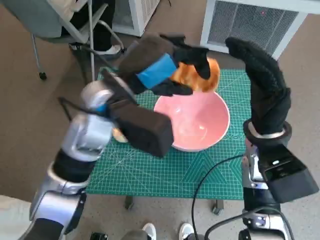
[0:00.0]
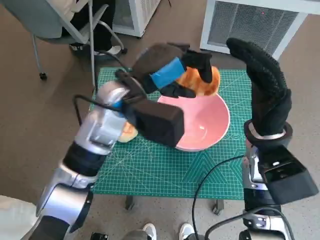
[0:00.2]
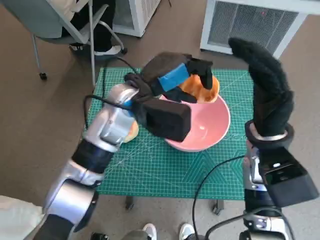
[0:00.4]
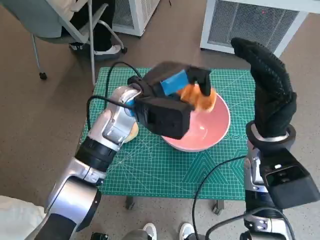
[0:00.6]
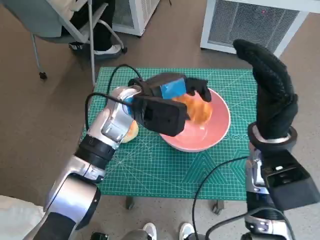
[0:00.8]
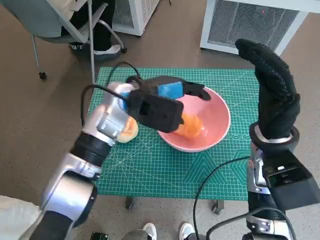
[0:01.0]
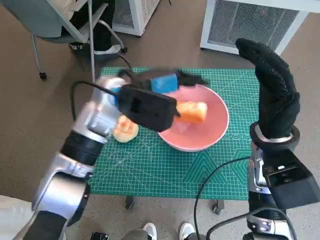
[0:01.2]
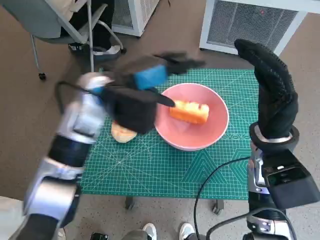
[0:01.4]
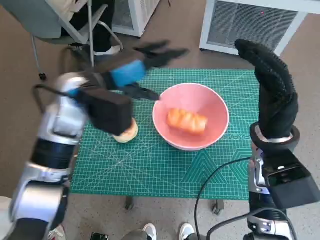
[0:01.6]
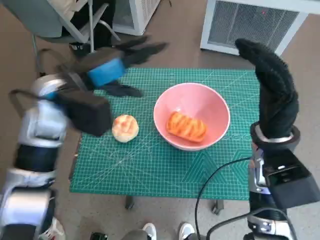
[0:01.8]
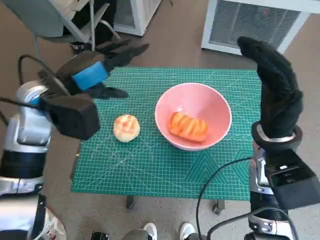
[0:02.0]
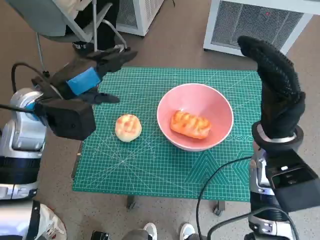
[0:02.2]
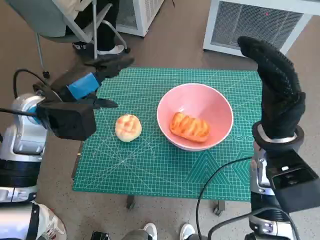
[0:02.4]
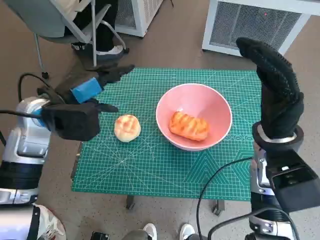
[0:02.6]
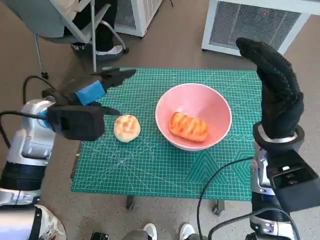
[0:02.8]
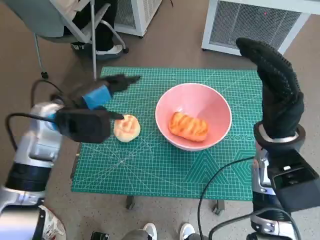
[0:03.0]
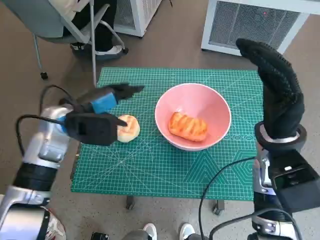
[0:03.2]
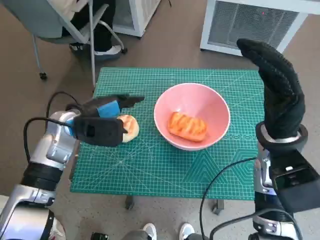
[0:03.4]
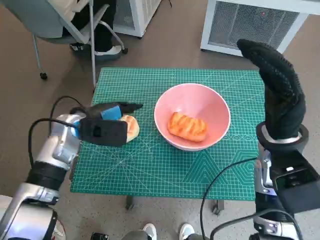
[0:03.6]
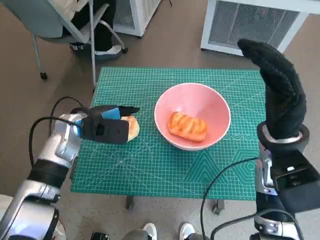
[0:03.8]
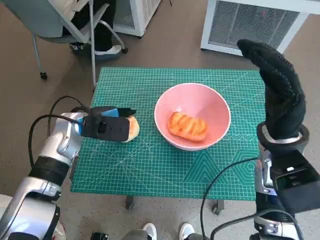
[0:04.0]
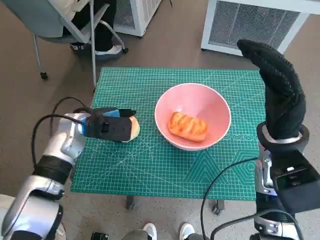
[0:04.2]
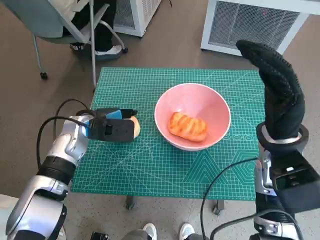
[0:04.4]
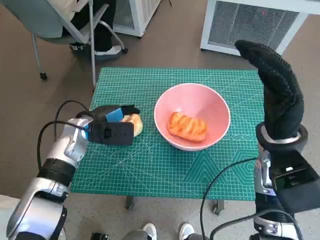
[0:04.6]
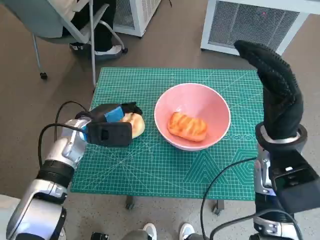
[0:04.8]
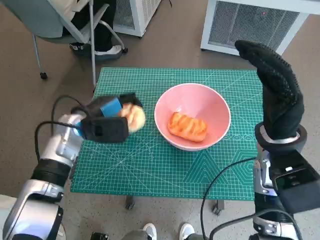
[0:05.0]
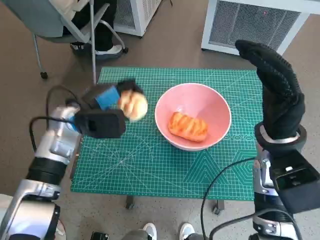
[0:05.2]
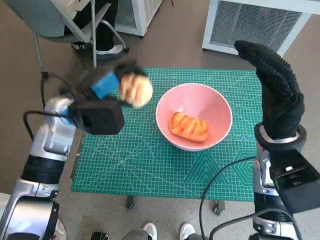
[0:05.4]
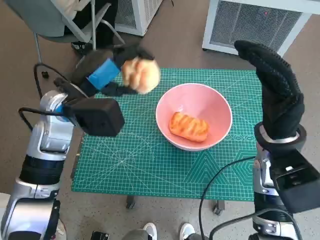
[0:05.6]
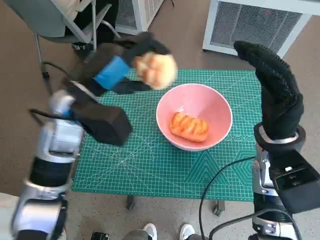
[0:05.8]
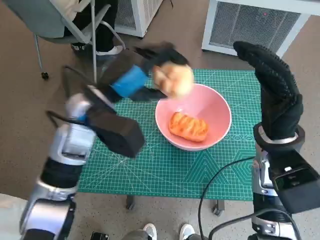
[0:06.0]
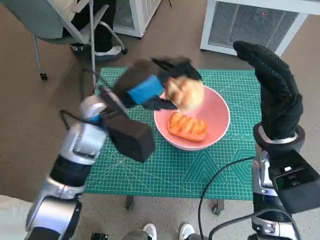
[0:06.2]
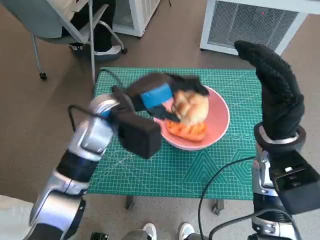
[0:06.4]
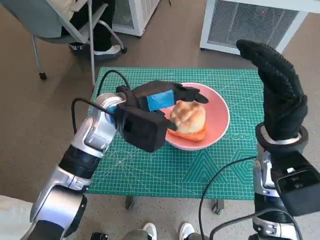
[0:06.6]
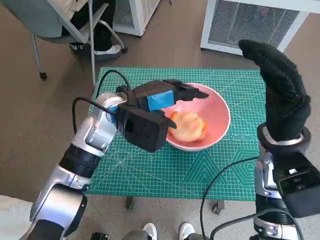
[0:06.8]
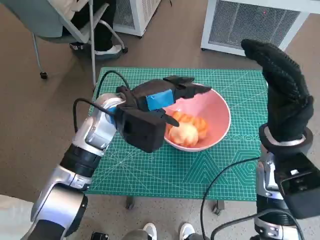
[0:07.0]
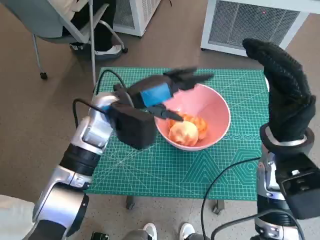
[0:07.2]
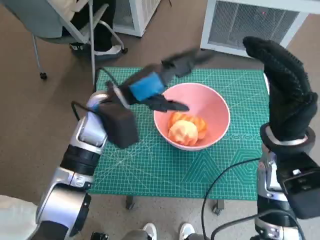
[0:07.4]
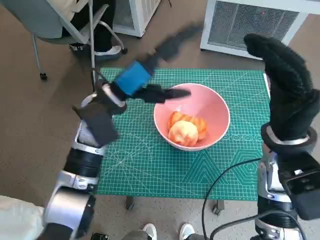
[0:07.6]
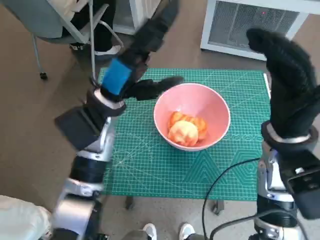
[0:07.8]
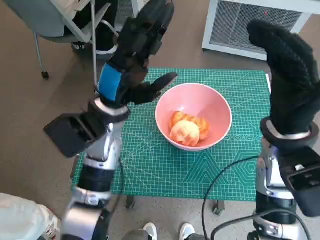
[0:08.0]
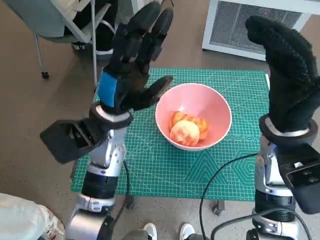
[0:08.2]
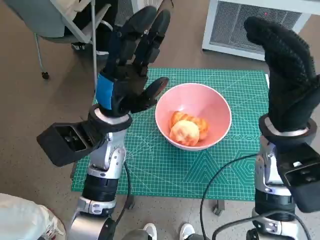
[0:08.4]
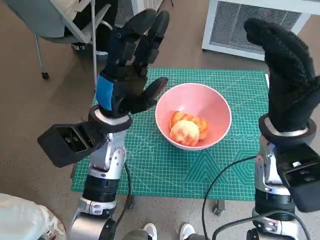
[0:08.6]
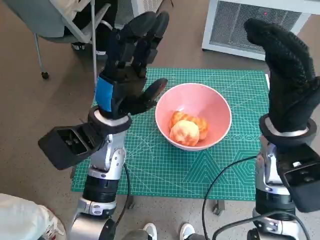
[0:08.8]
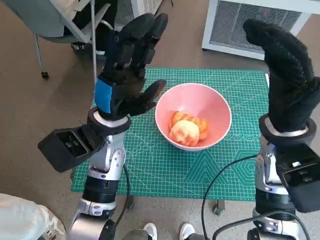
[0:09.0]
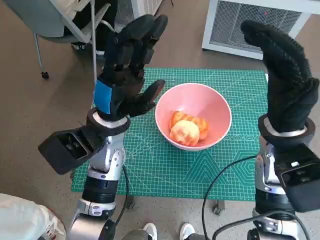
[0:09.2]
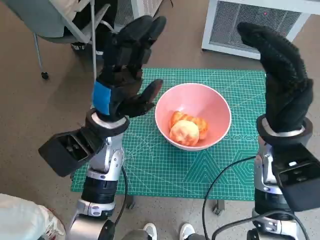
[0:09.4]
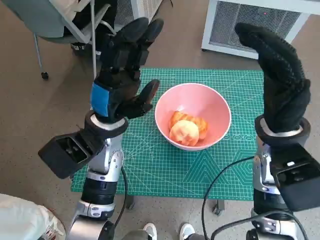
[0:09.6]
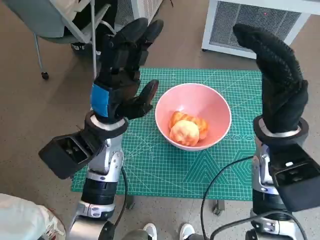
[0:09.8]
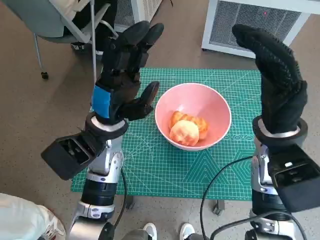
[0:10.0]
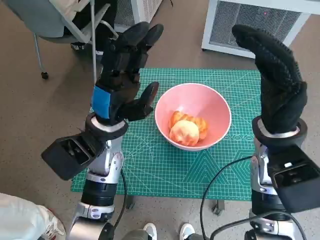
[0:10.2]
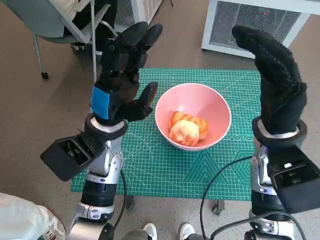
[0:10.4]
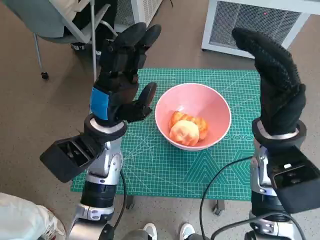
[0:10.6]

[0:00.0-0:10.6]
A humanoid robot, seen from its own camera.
Task of the whole recording: Push the bowl to the center of the table and put the bread into the bowl.
Step, 0:01.6 to 0:04.4: Grasp the round bread with left hand.
Step, 0:04.8 to 0:08.2: Place the round bread in pink bowl with left hand.
0:00.0 to 0:01.6: The left hand moves roughly 5 cm.
0:01.6 to 0:03.0: The left hand moves to the left, some 5 cm.
0:03.0 to 0:04.6: The left hand goes about 10 cm downward.
0:04.6 to 0:06.0: The left hand shifts roughly 15 cm upward and to the right.

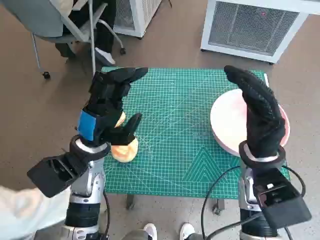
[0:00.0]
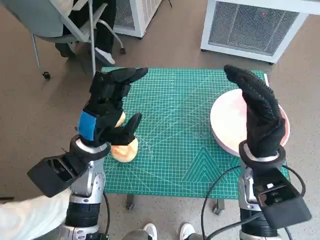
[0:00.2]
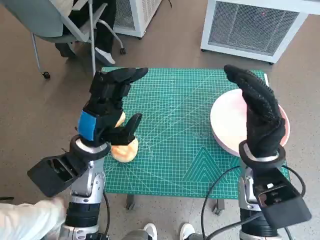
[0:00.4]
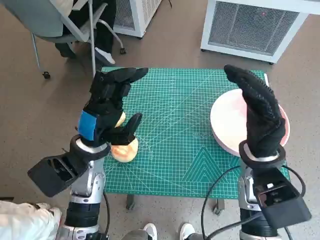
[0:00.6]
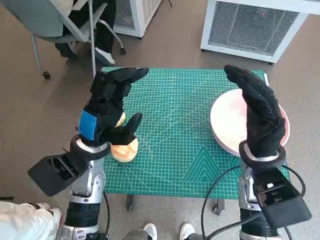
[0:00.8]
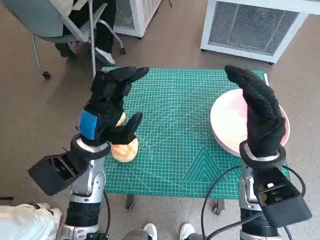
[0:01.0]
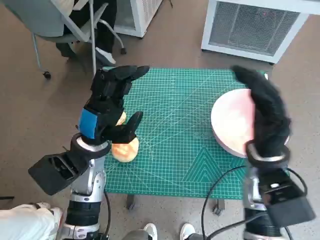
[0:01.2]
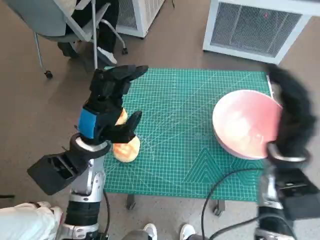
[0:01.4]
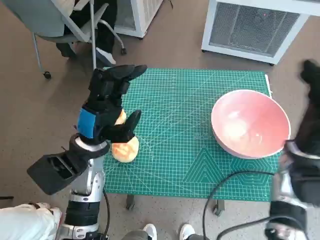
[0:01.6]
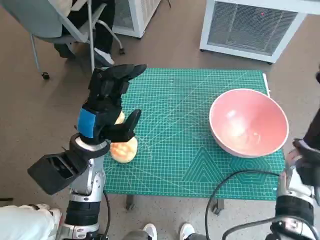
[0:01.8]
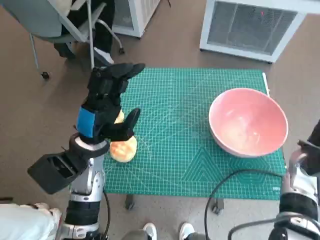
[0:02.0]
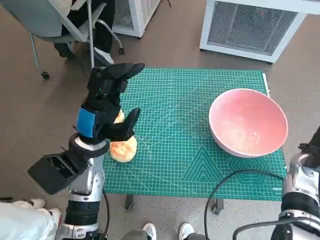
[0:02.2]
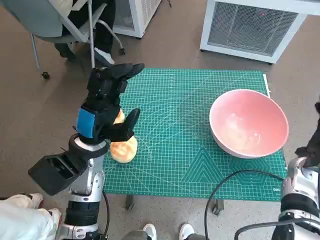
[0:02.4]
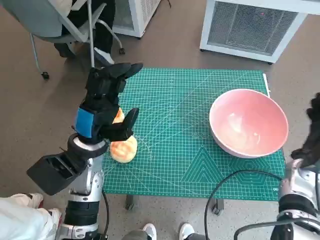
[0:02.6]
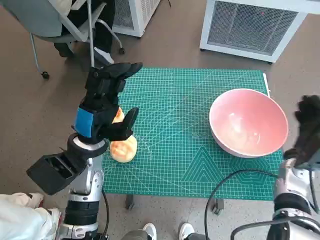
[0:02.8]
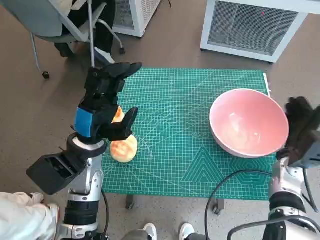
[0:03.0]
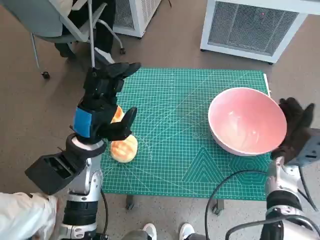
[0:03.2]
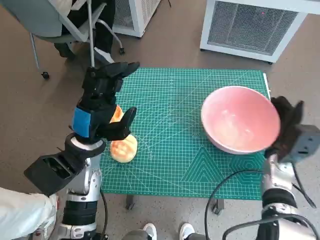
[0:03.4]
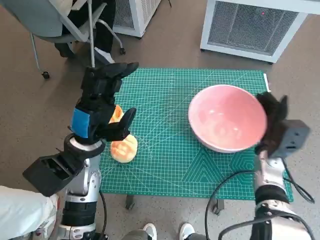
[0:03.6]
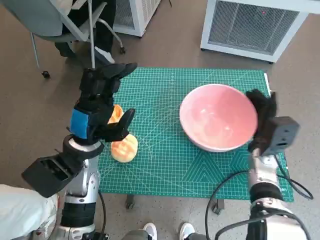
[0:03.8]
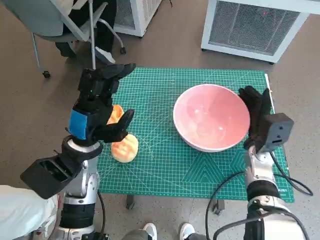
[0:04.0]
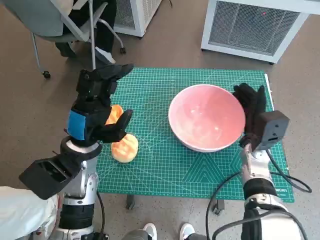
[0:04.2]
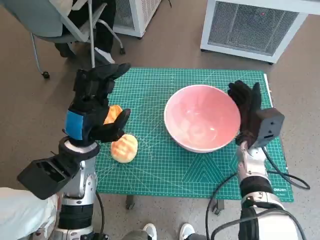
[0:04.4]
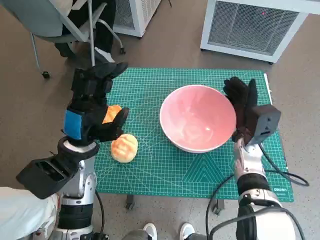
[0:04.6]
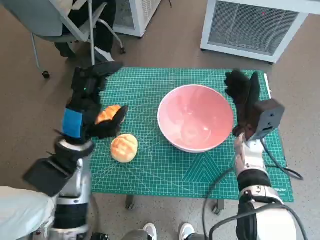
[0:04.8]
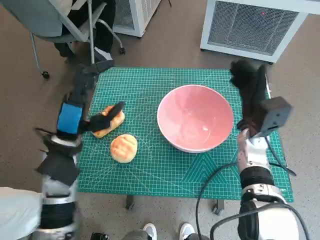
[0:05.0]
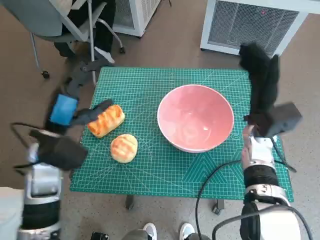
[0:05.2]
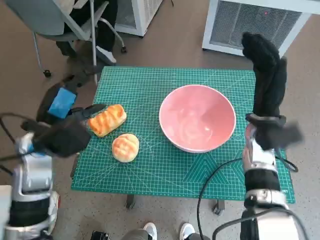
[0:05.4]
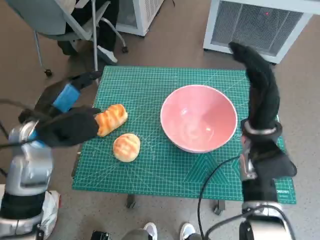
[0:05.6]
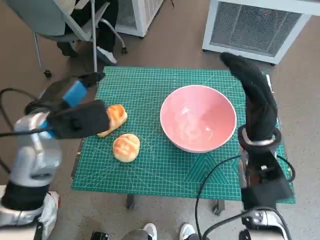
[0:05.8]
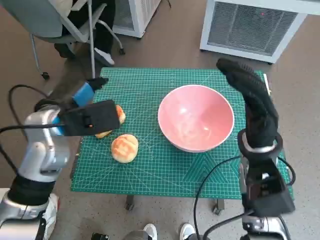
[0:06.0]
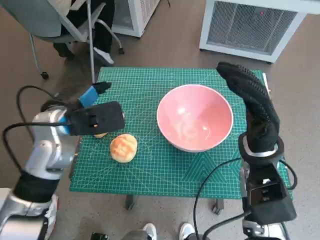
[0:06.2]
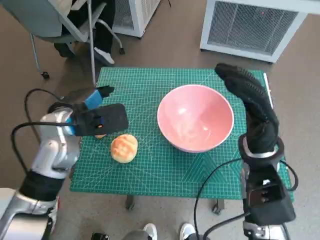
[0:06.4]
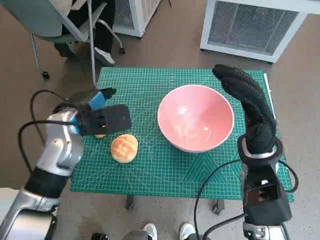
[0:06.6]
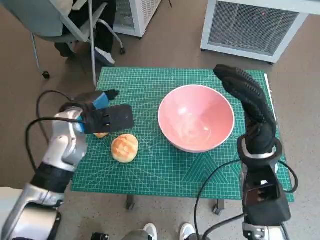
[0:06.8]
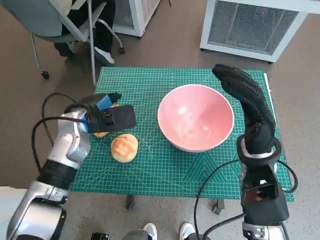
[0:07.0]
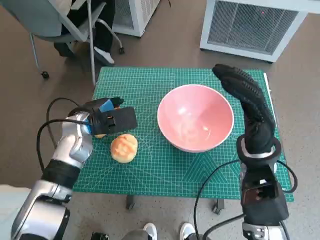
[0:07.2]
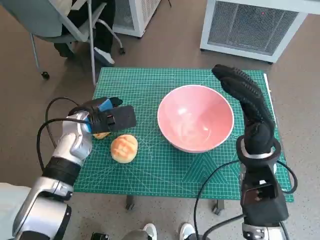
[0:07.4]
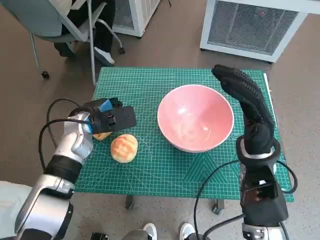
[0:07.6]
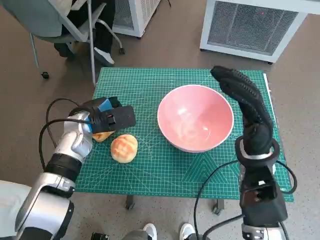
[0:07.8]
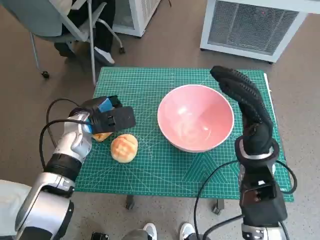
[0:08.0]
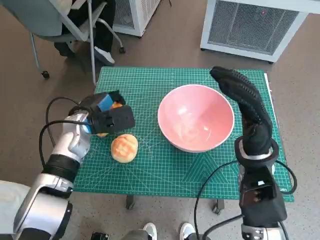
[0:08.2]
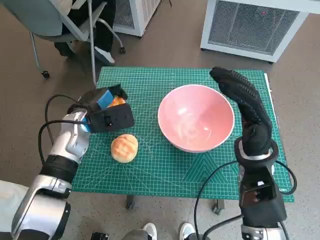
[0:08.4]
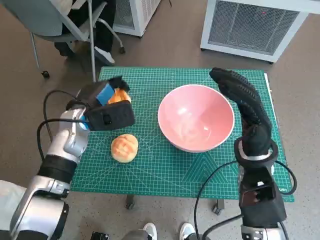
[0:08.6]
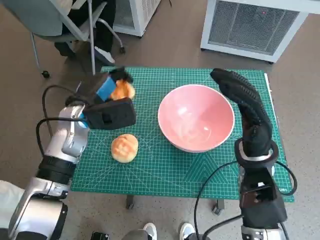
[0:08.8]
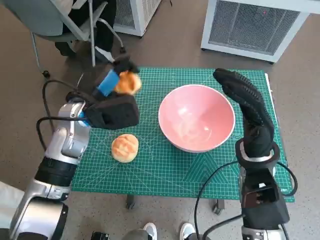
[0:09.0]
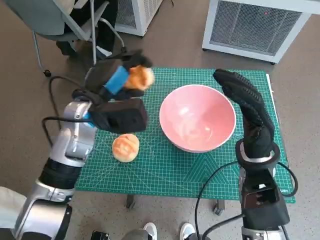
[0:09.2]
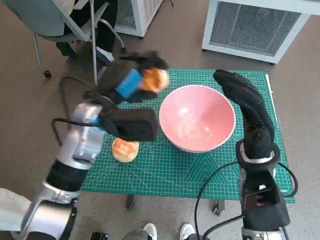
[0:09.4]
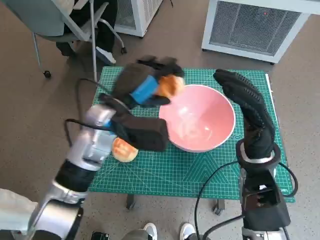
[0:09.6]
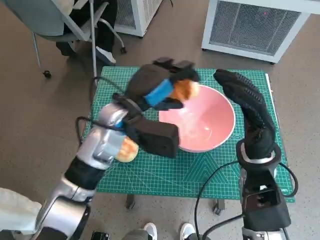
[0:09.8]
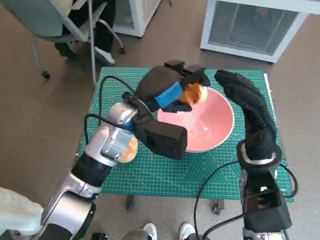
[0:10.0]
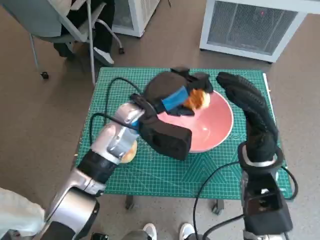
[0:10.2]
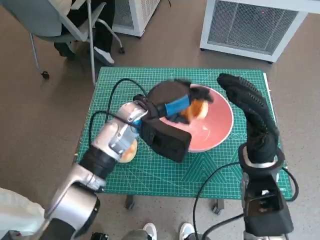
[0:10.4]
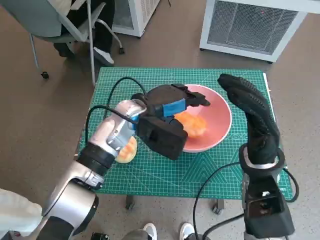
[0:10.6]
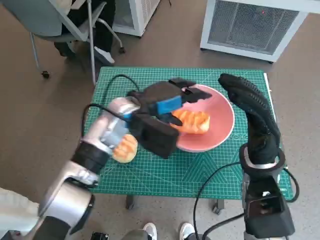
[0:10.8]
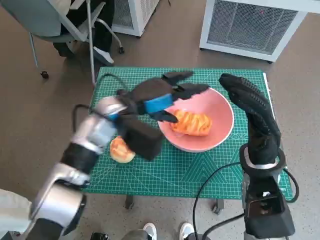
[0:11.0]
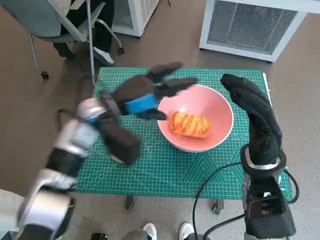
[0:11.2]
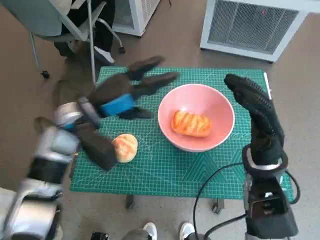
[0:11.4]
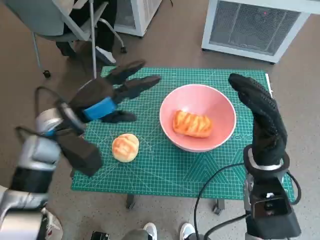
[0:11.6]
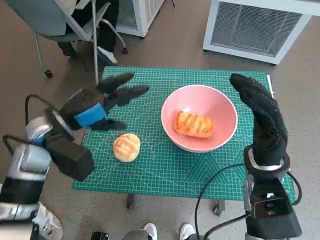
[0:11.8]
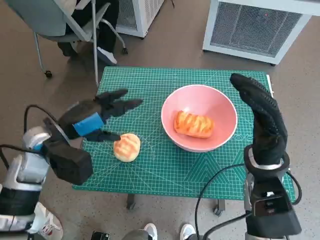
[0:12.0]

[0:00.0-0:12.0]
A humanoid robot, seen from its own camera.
Task of the whole recording: Push the bowl to the center of the table and put the bread into the bowl.
Step, 0:00.0 to 0:05.0: Move the pink bowl to the center of table with right hand.
Step, 0:05.2 to 0:08.0: Grasp the long bread with left hand.
Step, 0:08.2 to 0:11.2: Place the long bread in pink bowl with left hand.
0:01.6 to 0:03.0: The right hand is displaced downward by some 10 cm.
0:03.0 to 0:04.4: The right hand is displaced to the left by some 10 cm.
0:04.4 to 0:06.0: Both hands travel together upward, approximately 10 cm.
0:06.0 to 0:07.6: The left hand goes roughly 10 cm downward.
0:07.6 to 0:09.0: The left hand goes some 5 cm upward.
0:09.0 to 0:10.4: The left hand heads to the right, covering approximately 10 cm.
0:10.4 to 0:12.0: The left hand heads to the left, covering approximately 15 cm.
